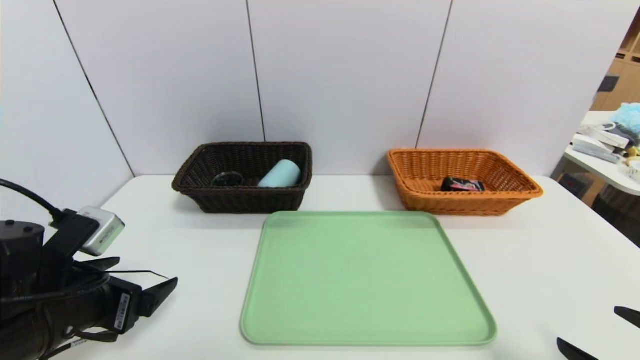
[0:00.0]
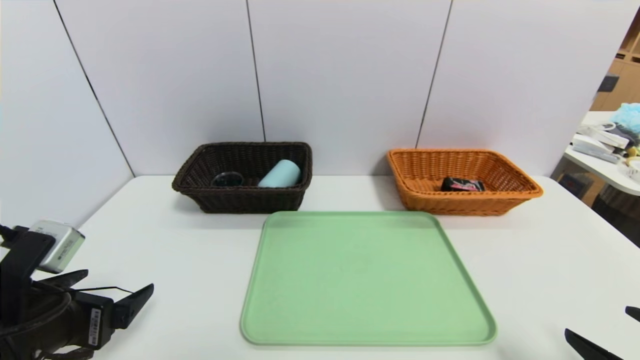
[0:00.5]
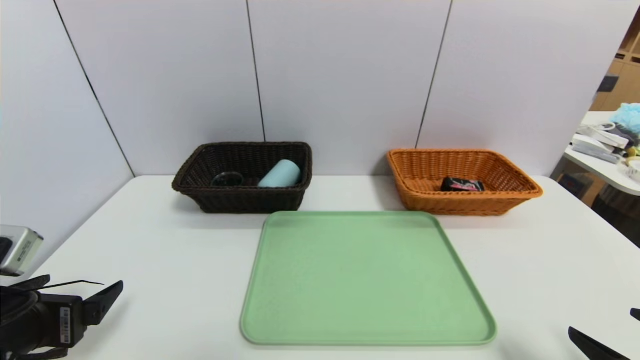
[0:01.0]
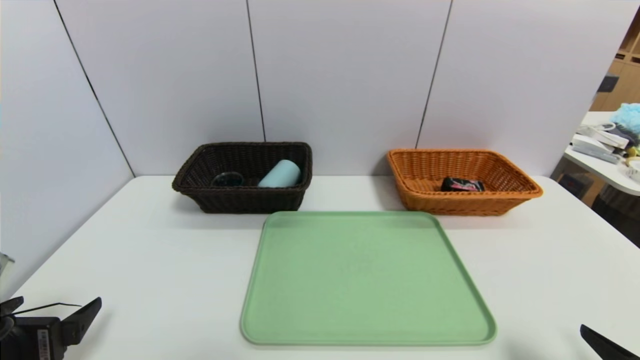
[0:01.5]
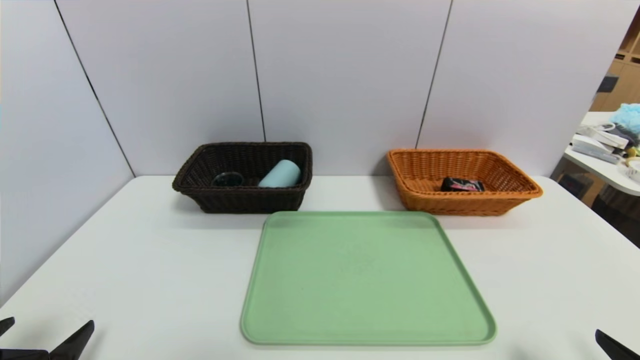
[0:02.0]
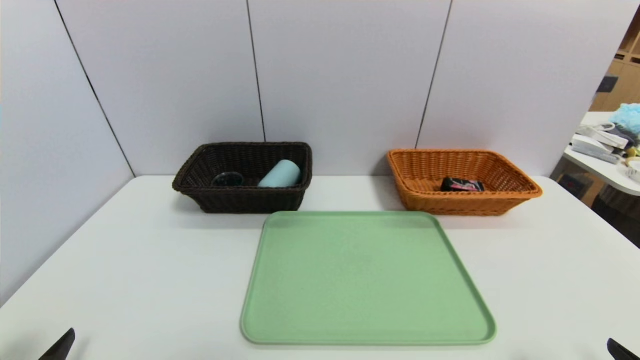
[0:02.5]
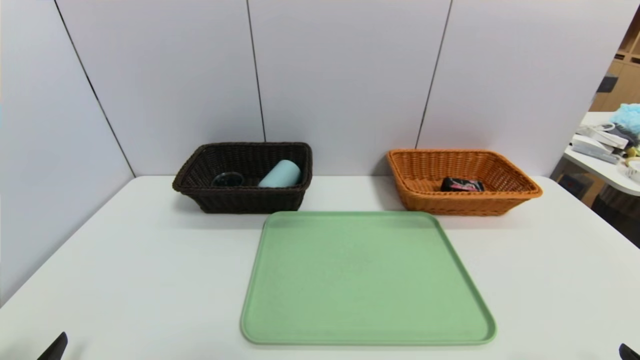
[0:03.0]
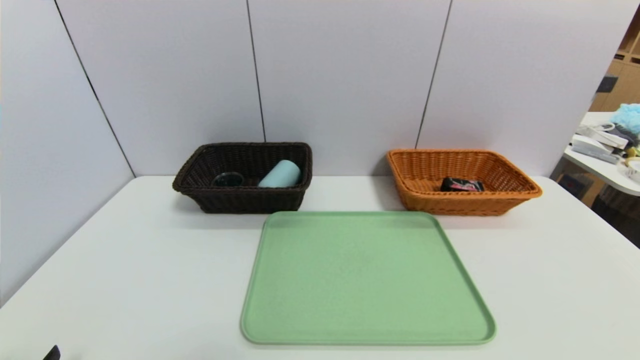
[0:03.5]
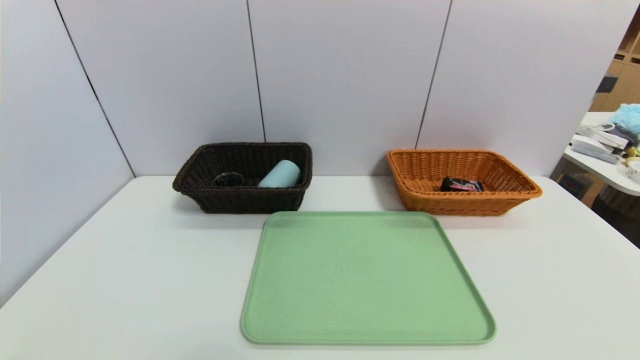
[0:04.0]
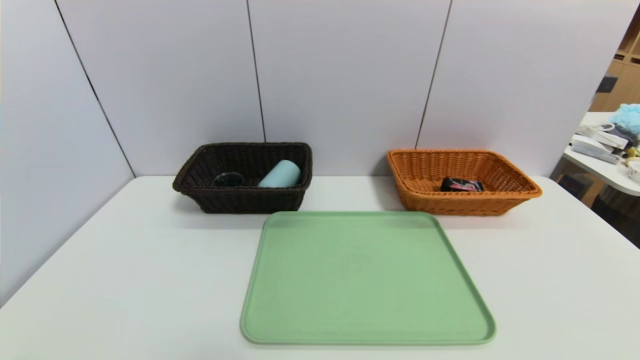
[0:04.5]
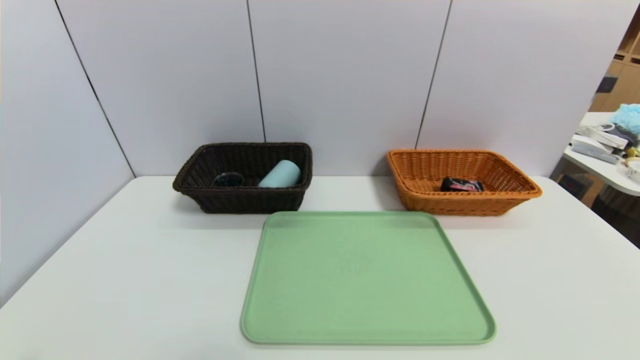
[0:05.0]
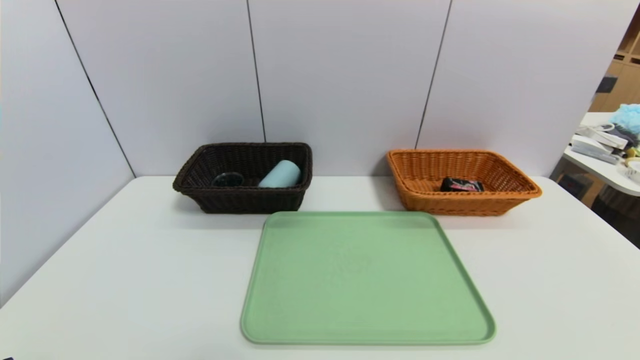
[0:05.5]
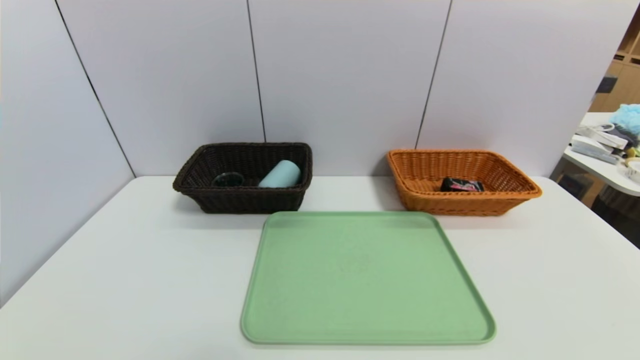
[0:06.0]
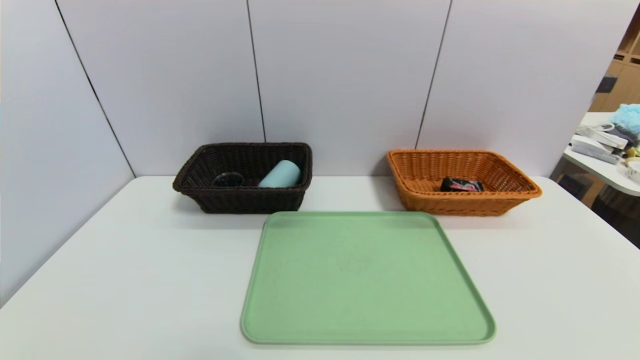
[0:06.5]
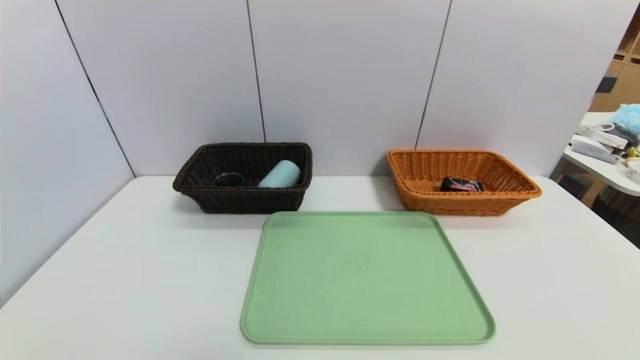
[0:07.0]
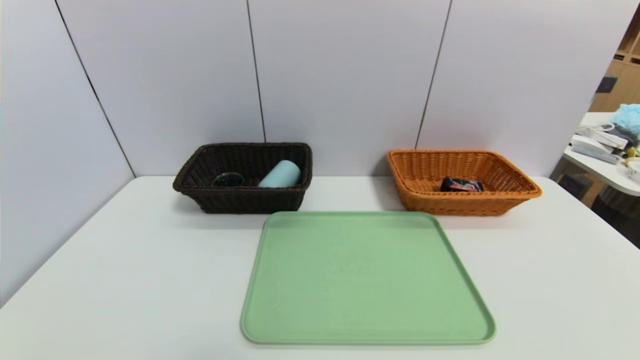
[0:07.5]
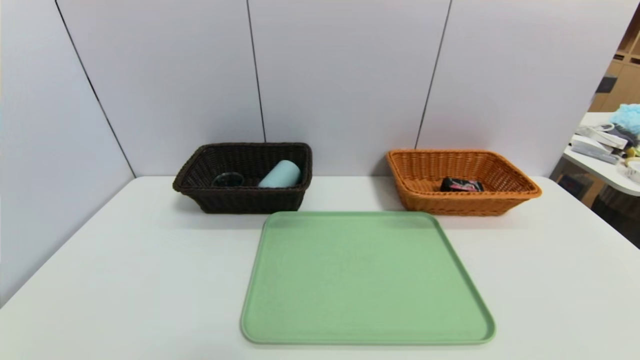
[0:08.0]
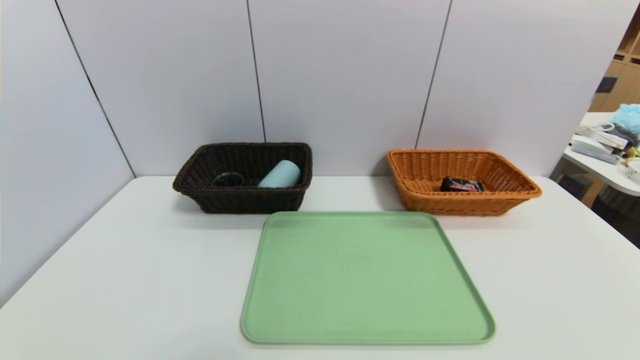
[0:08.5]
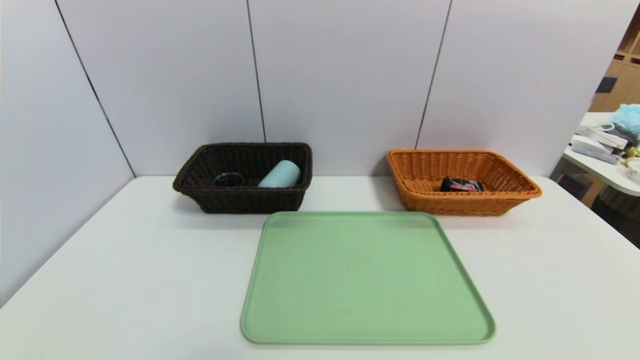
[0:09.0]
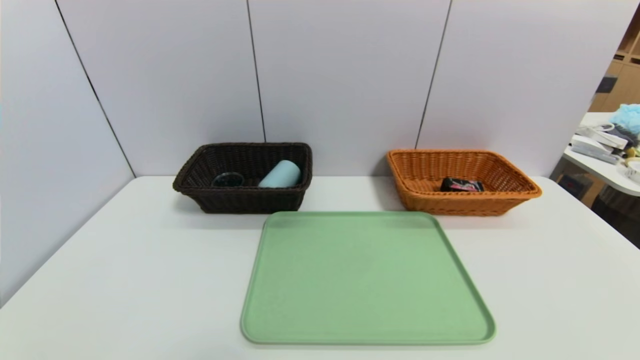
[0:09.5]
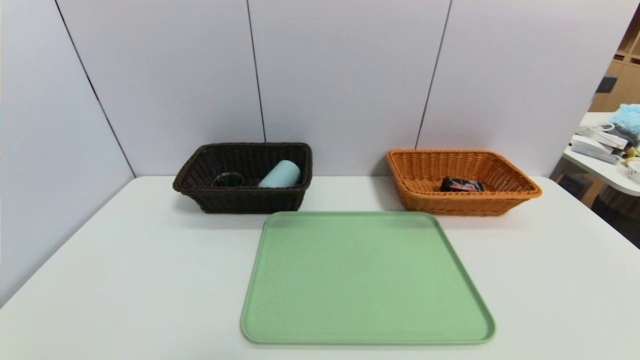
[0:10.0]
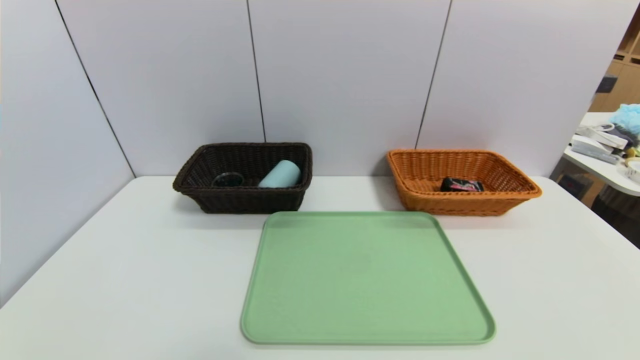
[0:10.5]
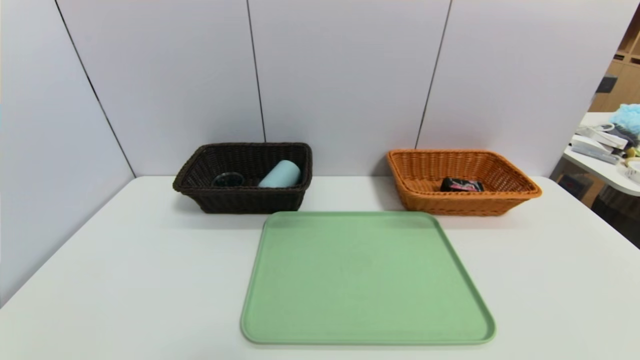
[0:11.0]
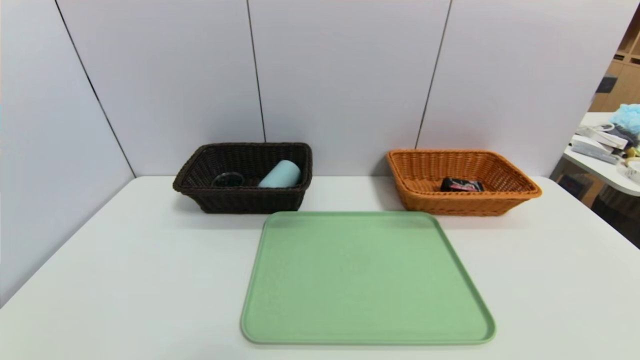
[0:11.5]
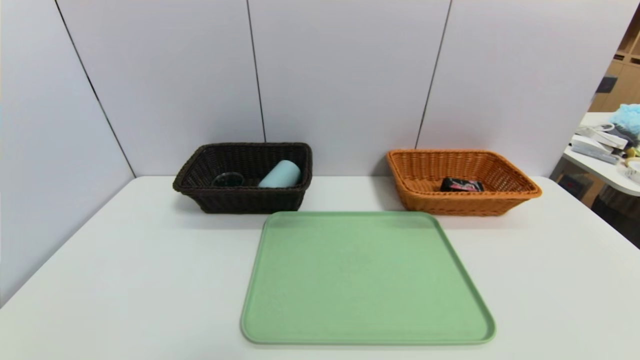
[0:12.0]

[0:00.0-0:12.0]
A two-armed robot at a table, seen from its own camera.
Task of the whole recording: place the food in the right basket with the right gripper, and place the non food items in the left basket with the left gripper.
0:00.0 to 0:02.0: The left gripper heads backward, covering some 10 cm.
0:02.0 to 0:04.0: The left gripper heads backward, covering roughly 5 cm.

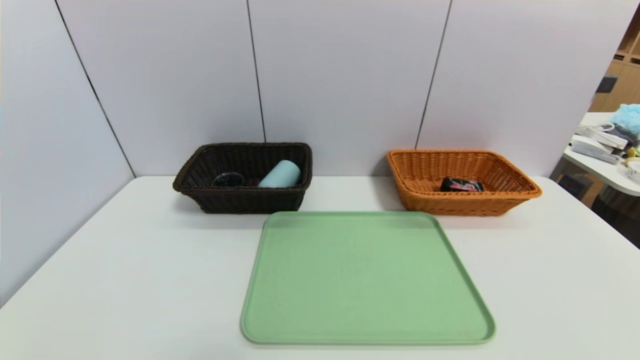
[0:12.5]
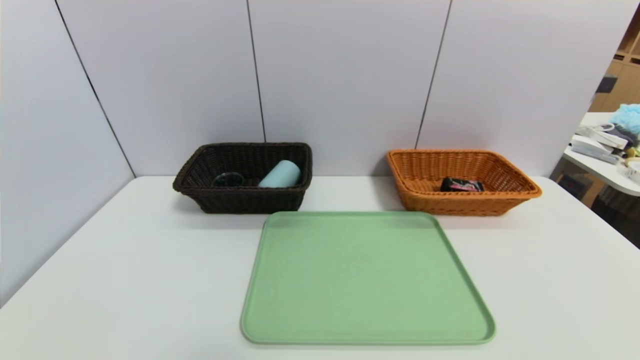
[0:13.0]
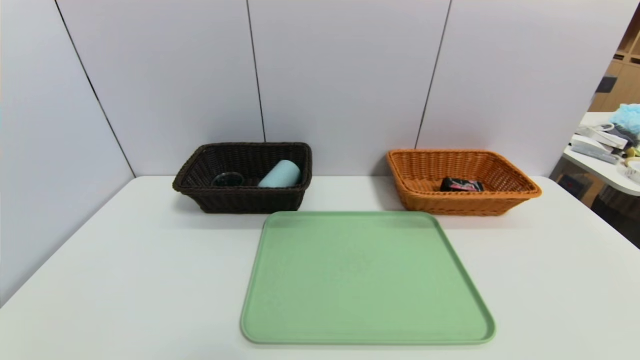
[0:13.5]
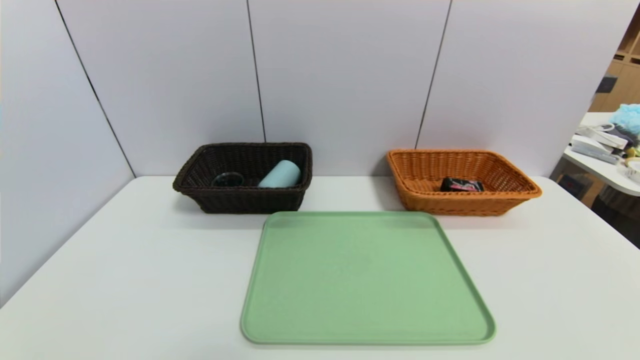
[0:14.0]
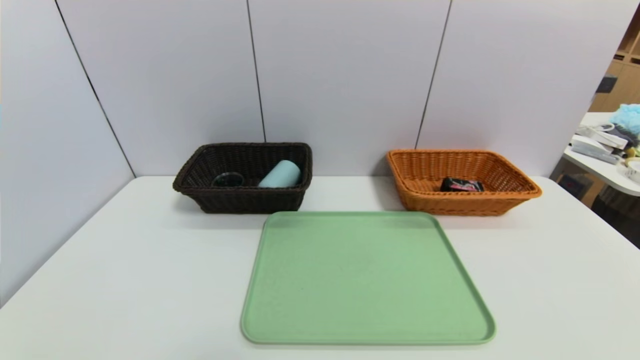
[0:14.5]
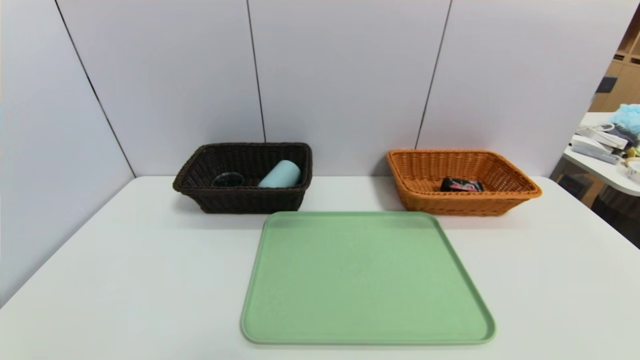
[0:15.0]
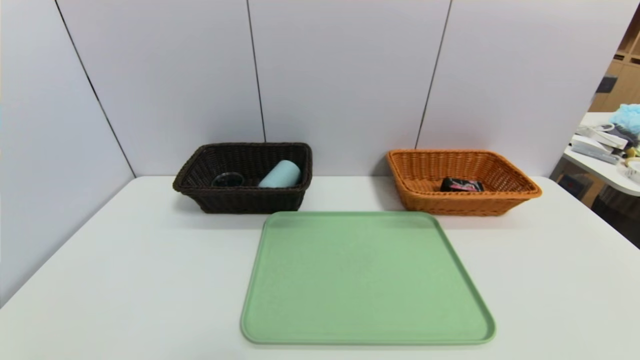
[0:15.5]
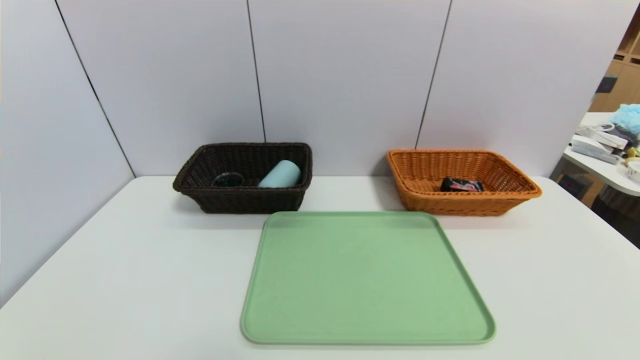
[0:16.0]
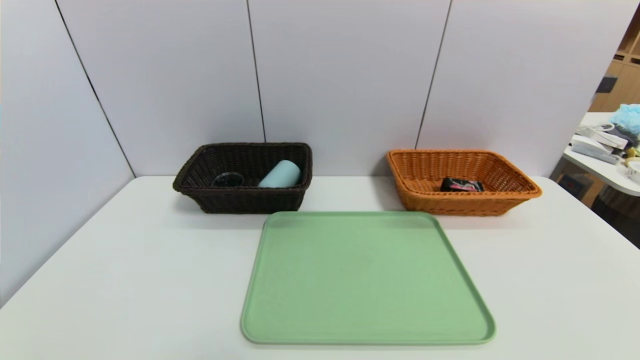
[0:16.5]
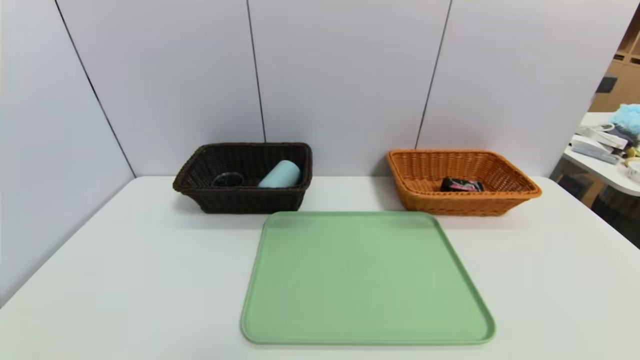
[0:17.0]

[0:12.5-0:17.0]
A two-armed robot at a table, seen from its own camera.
Task of the whole recording: place the food in the right basket with the right gripper, and place the non food items in the left basket with the left gripper.
0:14.5 to 0:17.0: Both grippers stay about where they are.

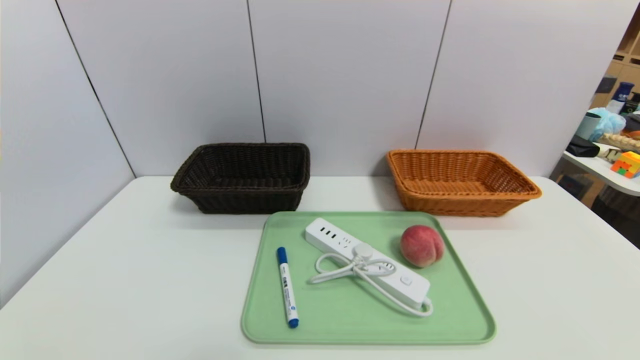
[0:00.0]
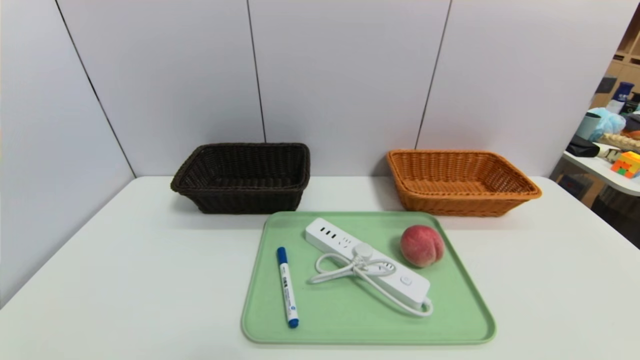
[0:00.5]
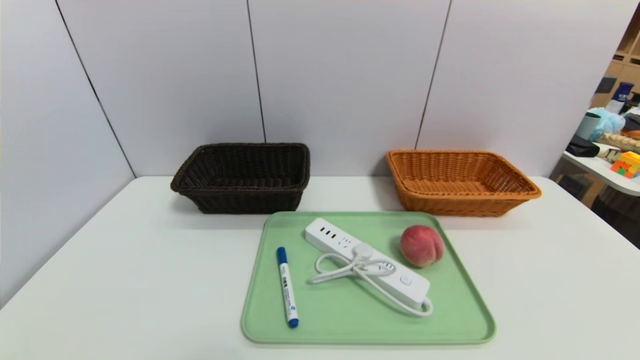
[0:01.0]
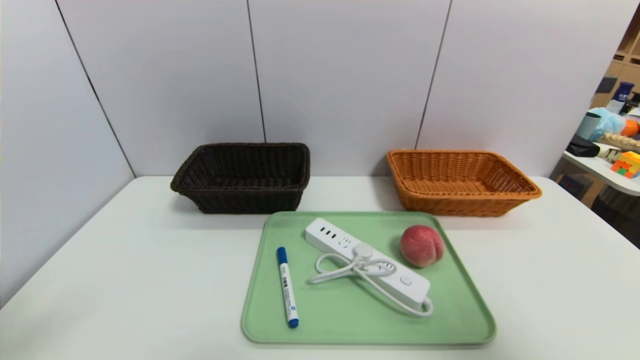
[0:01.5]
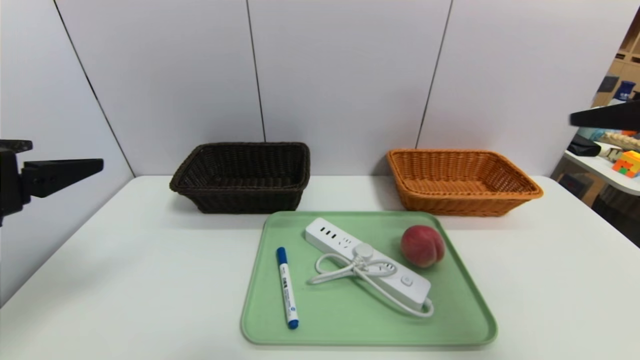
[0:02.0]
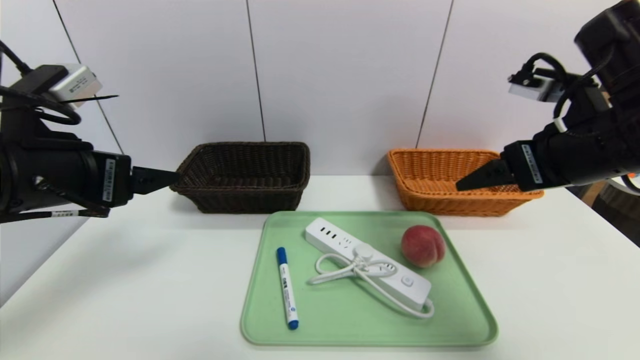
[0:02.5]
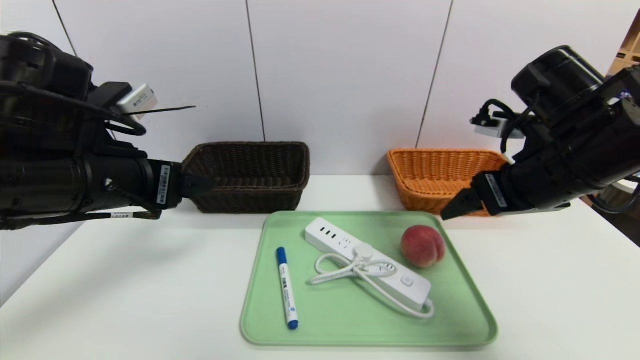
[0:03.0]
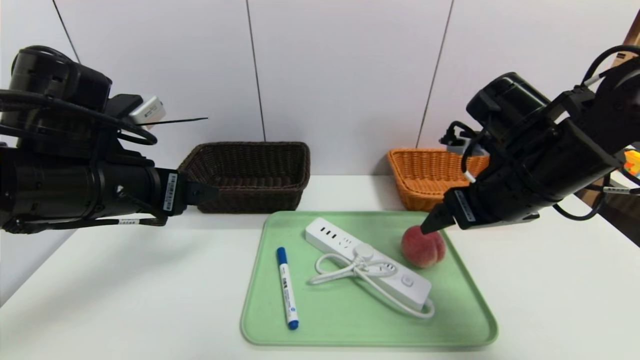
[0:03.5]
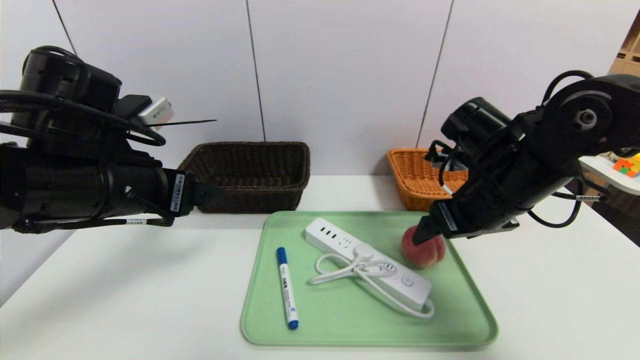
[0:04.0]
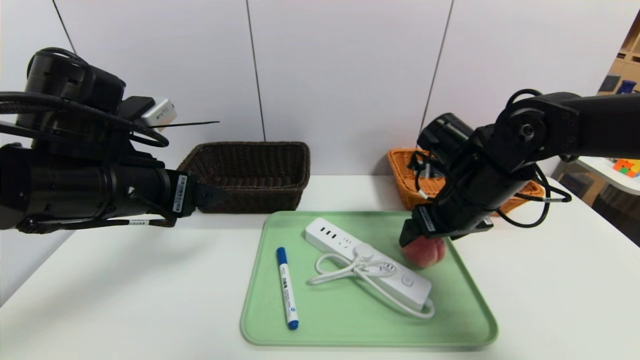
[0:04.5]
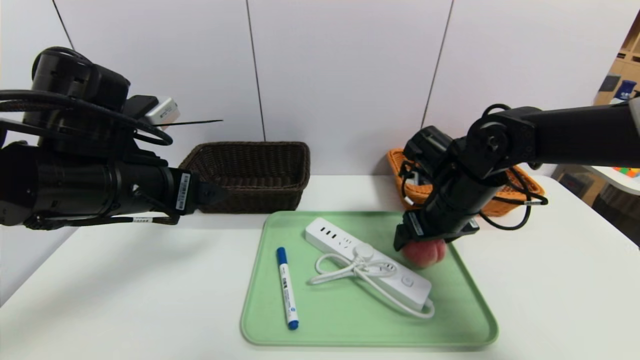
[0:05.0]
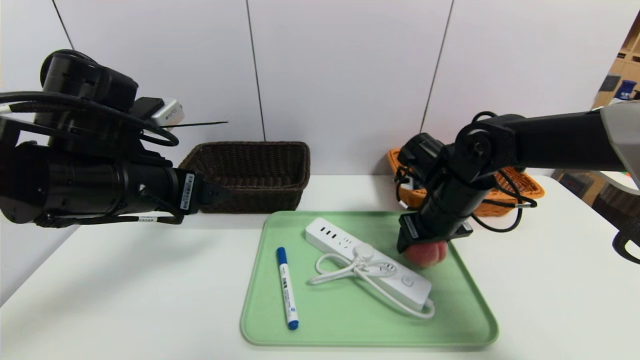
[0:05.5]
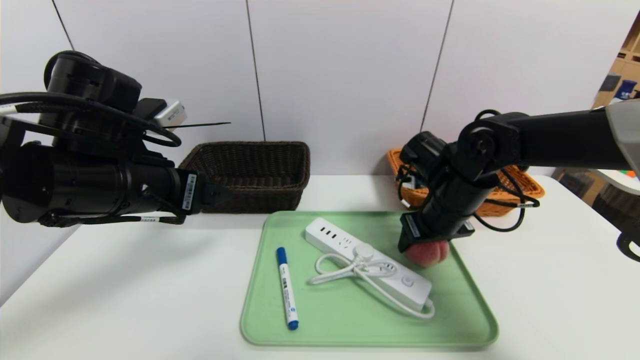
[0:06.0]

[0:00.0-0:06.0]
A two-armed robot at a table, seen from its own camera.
Task of the whole recording: place the food in the right basket with the right gripper, and place the non food items in the left basket with the left gripper.
0:00.0 to 0:02.0: The two grippers go some 30 cm upward and forward.
0:02.0 to 0:04.0: The left gripper shifts some 10 cm to the right and forward. Meanwhile the right gripper travels downward, forward and to the left by about 20 cm.
0:04.0 to 0:06.0: The right gripper travels downward and forward by roughly 5 cm, and closes.
